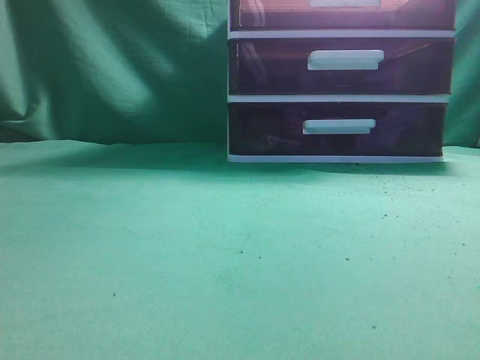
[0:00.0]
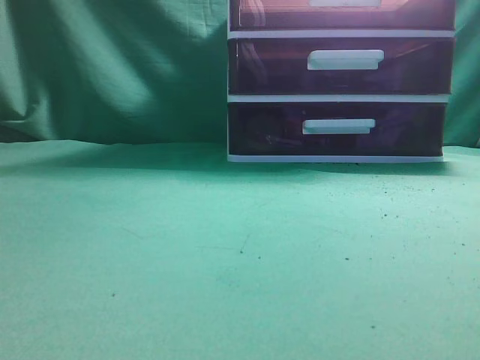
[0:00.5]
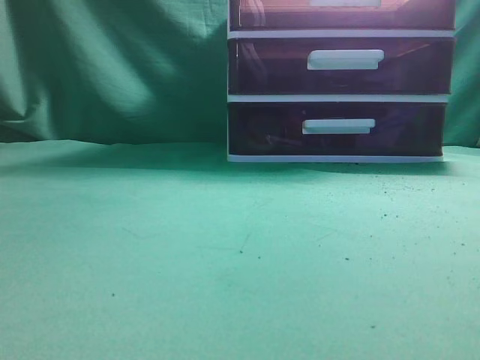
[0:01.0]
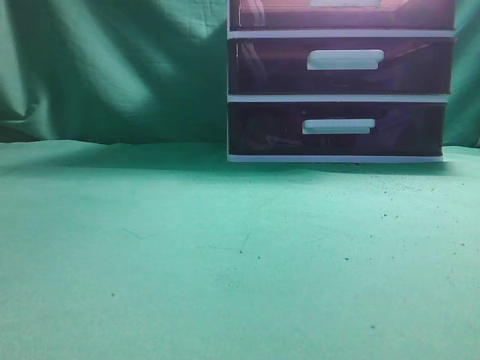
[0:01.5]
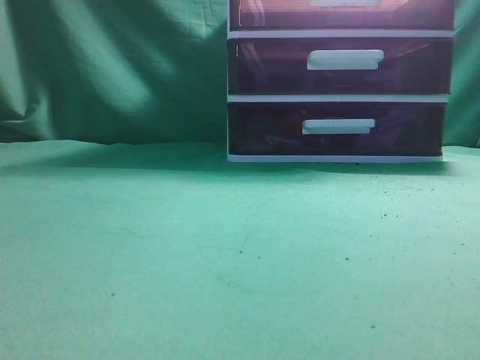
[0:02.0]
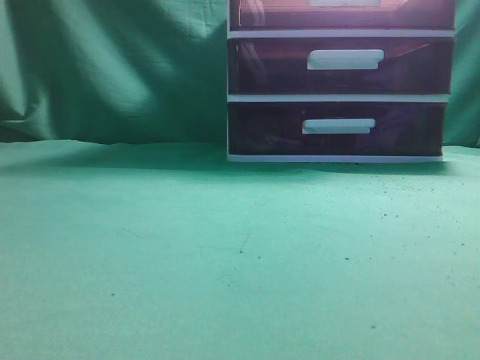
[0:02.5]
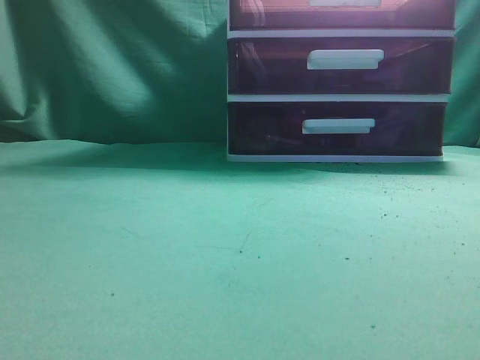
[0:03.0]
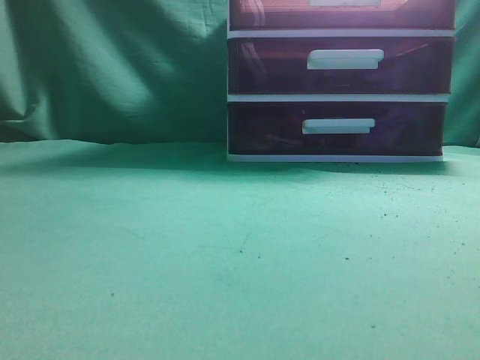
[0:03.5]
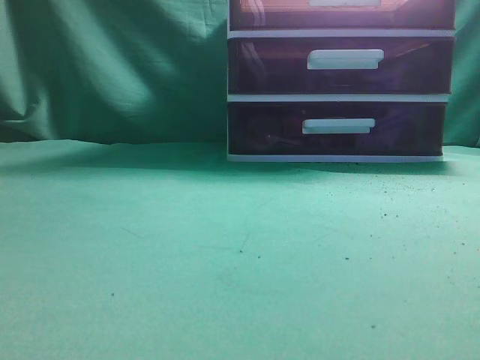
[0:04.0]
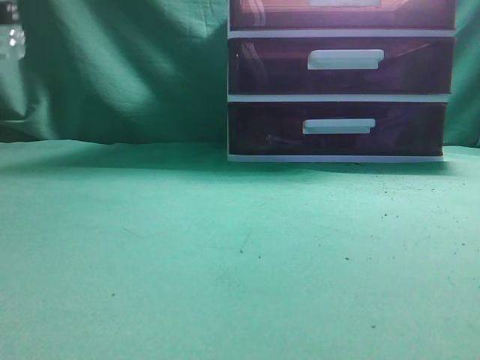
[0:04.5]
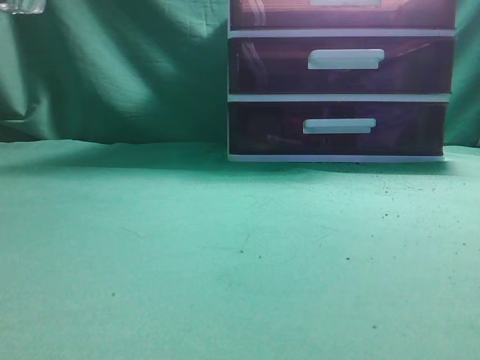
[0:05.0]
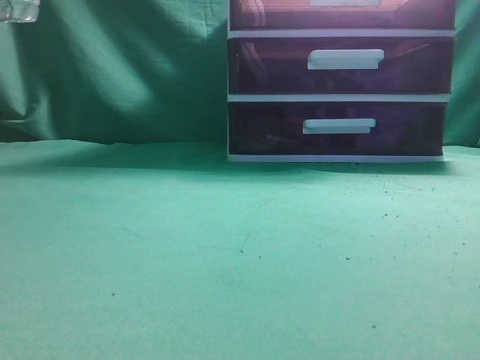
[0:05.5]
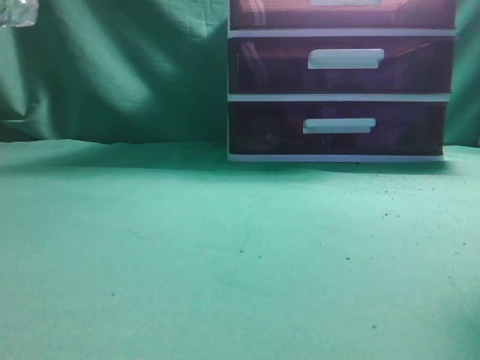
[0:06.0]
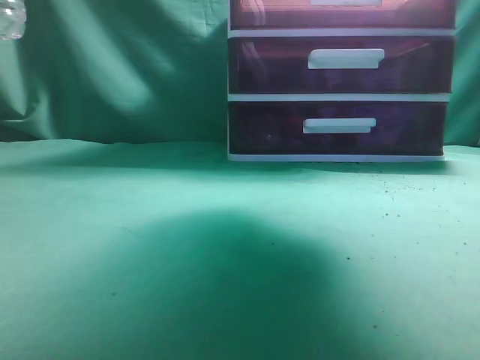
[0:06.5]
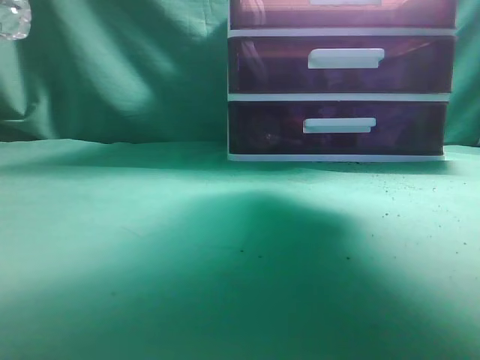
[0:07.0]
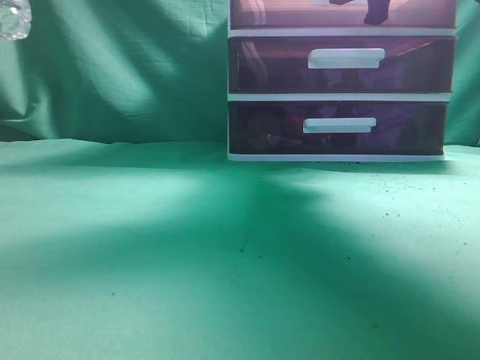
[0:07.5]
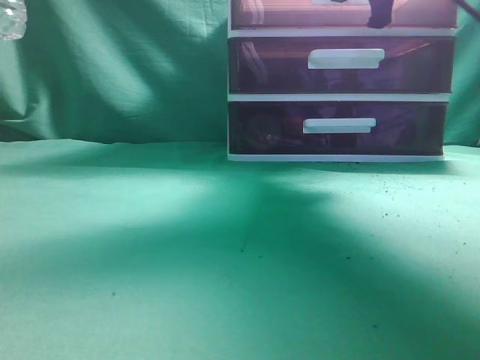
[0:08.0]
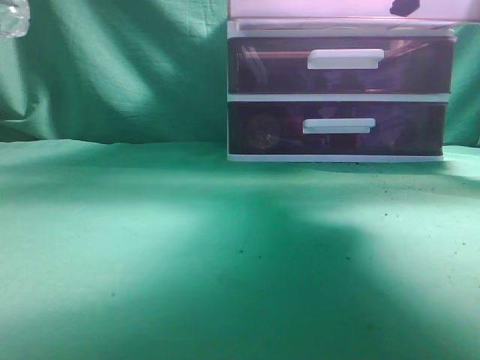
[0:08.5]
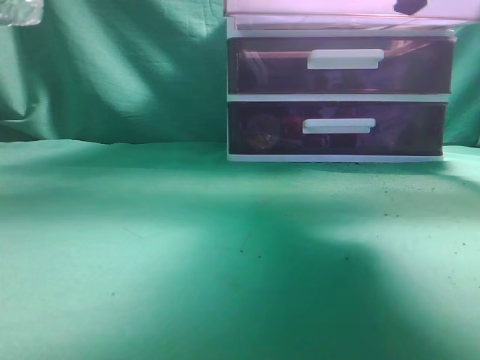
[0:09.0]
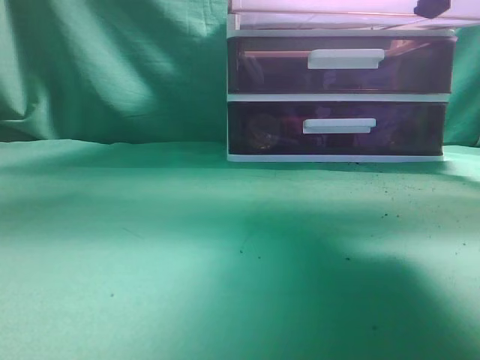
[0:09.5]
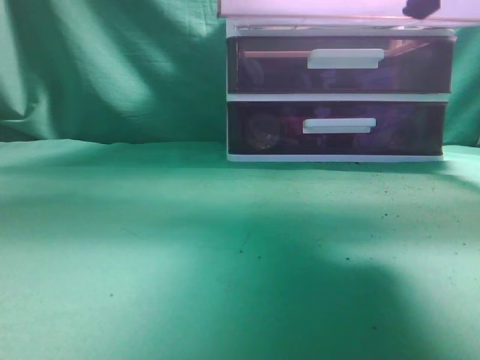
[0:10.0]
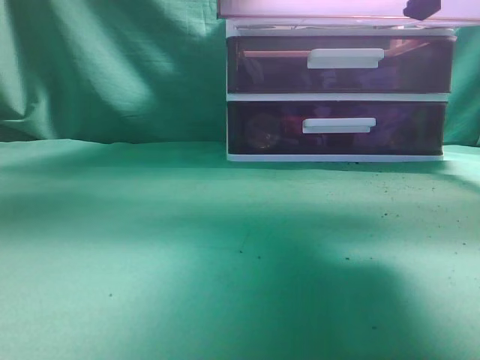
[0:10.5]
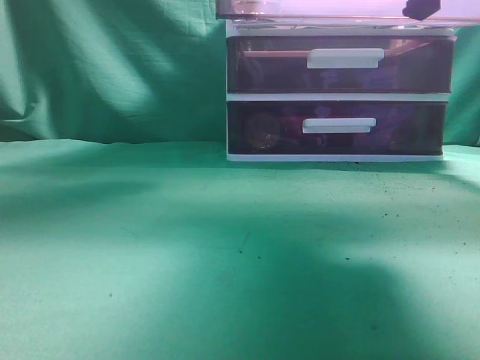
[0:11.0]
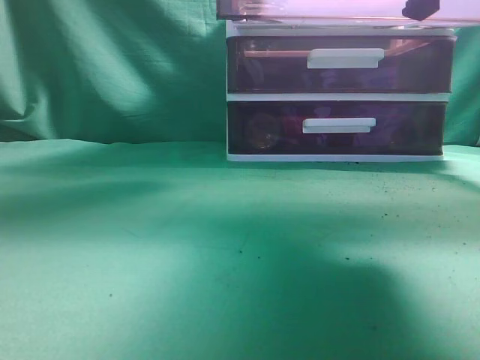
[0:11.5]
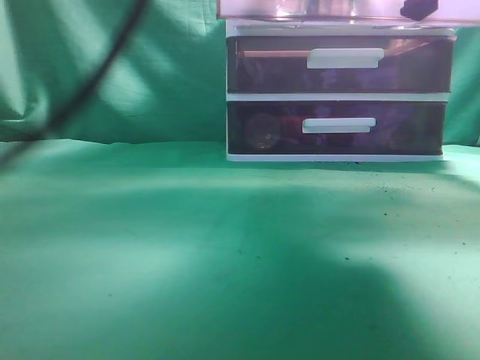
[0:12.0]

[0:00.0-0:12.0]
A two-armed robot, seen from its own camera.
Task of the whole recording: place the water bottle into the drawer.
Step, 0:00.0 to 0:09.0: Open the drawer.
0:04.0 to 0:06.0: The right gripper heads forward and upward, covering roughly 25 cm.
0:06.0 to 0:08.0: The right gripper is displaced forward by approximately 20 cm, and opens, then closes again.
0:08.0 to 0:10.0: The right gripper moves backward, about 15 cm. Meanwhile the left gripper moves upward, to the right and forward, about 15 cm.
0:10.0 to 0:12.0: The left gripper shifts roughly 25 cm to the right, forward and downward, and opens up.

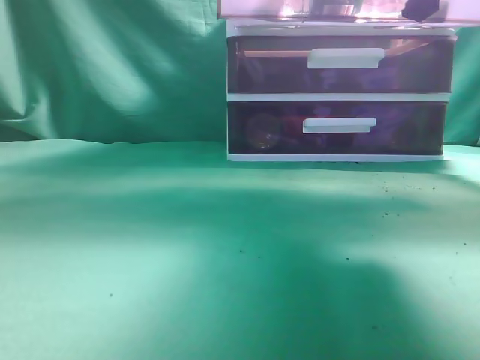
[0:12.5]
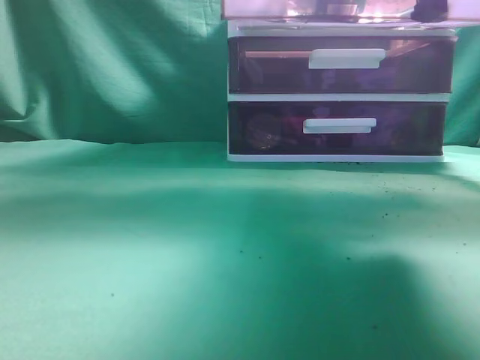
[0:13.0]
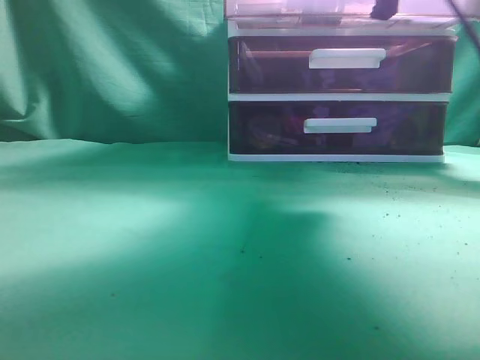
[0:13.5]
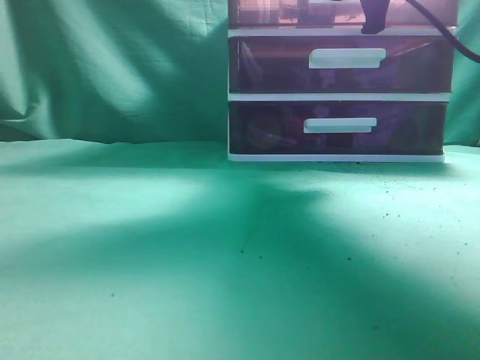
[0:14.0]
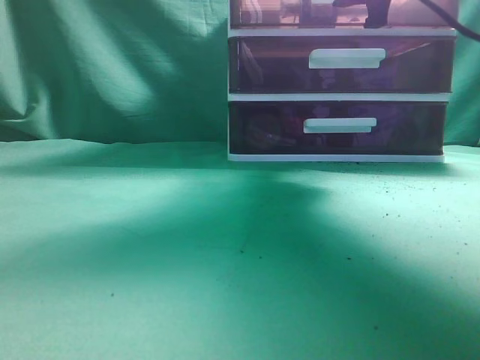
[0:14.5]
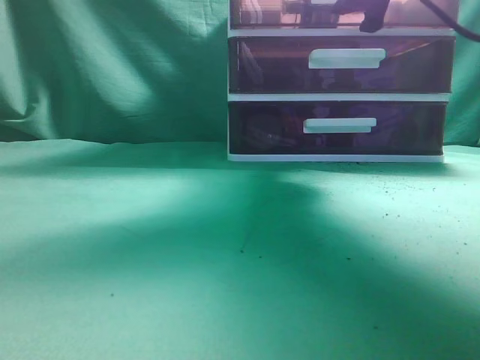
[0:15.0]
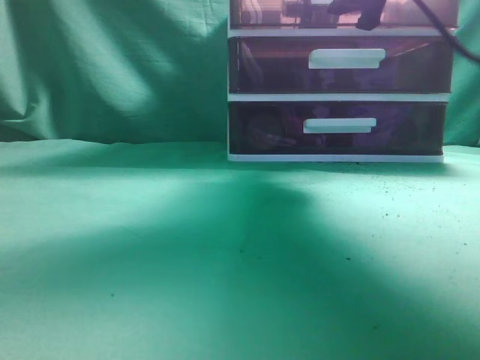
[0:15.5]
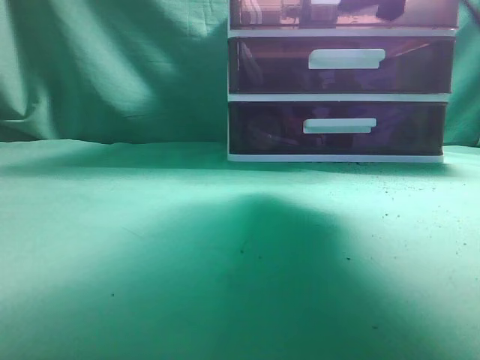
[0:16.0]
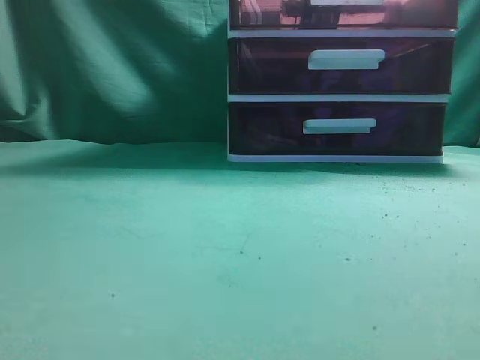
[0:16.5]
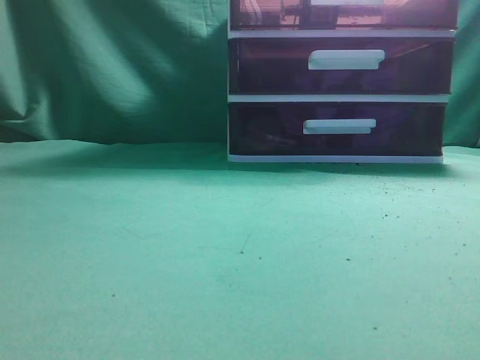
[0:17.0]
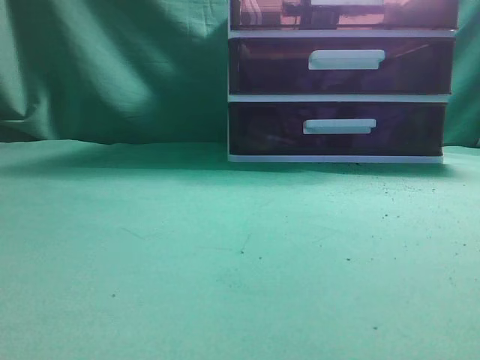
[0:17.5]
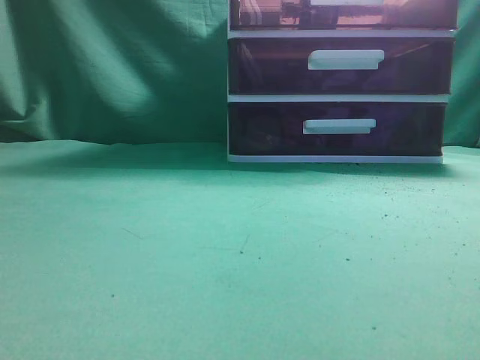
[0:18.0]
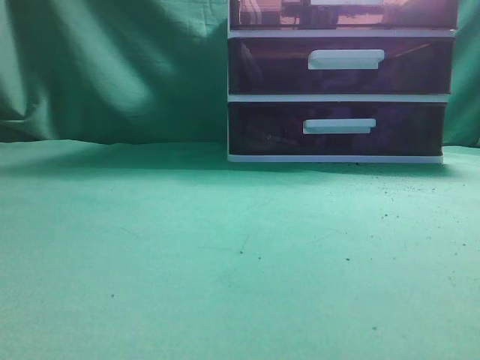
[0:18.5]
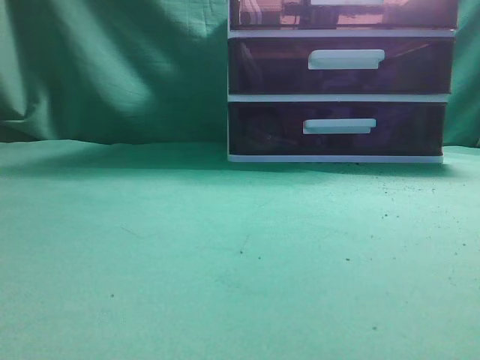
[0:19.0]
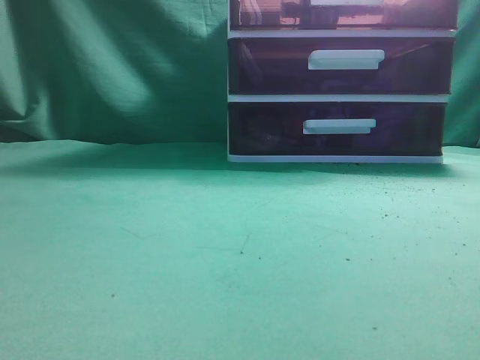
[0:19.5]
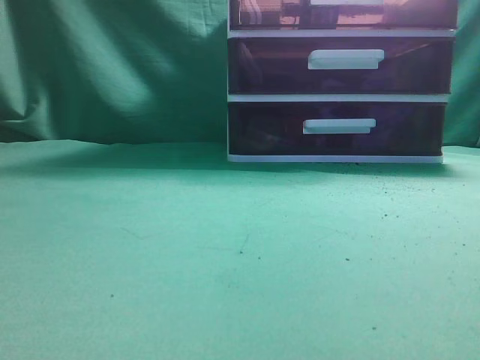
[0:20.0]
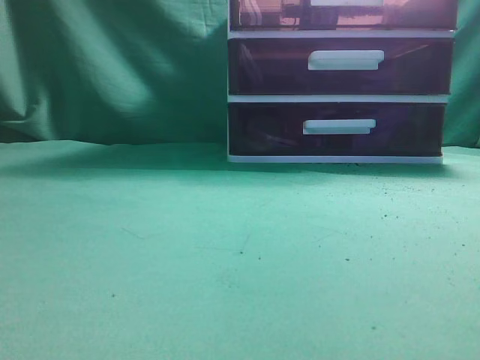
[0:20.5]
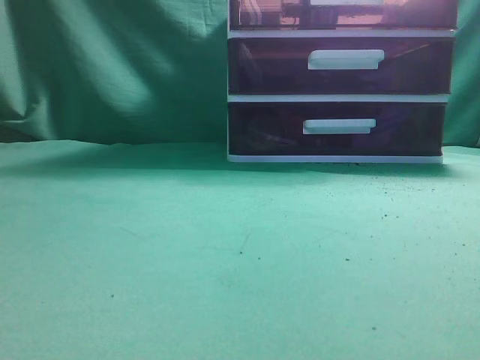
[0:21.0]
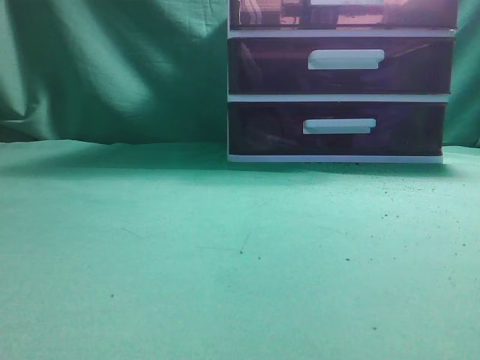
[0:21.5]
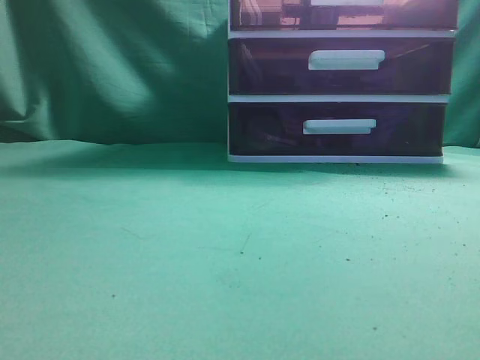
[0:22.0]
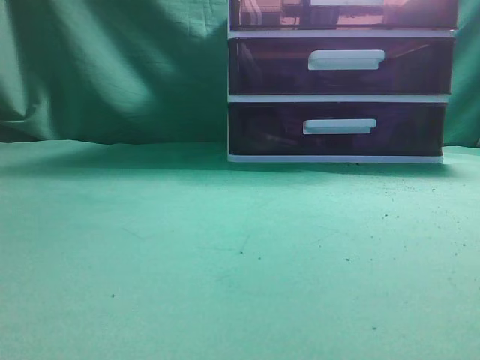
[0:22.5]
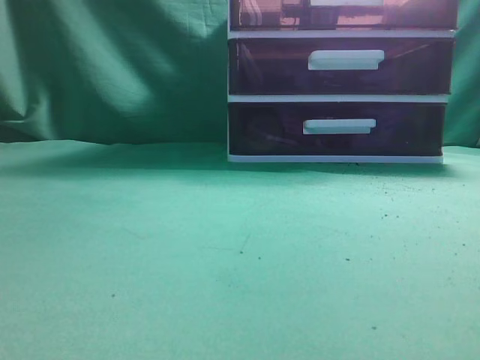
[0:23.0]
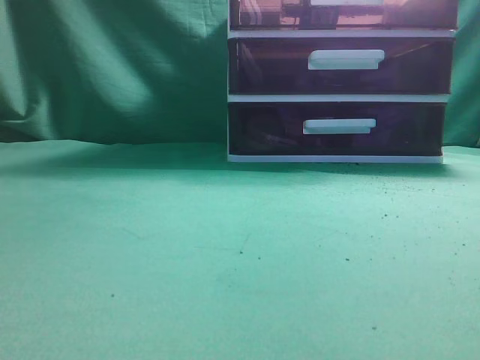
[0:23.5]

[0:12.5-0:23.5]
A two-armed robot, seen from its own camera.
Task of the whole recording: place the water bottle into the drawer.
Step, 0:13.0 to 0:15.5: Close the drawer.
0:12.5 to 0:14.5: The left gripper is displaced backward and to the left by approximately 25 cm; the right gripper heads forward, covering approximately 15 cm, and opens.
0:14.5 to 0:16.0: The right gripper is displaced backward by approximately 5 cm.
0:16.0 to 0:18.0: The left gripper travels downward, backward and to the left by approximately 25 cm. The right gripper goes roughly 30 cm backward, and closes.
